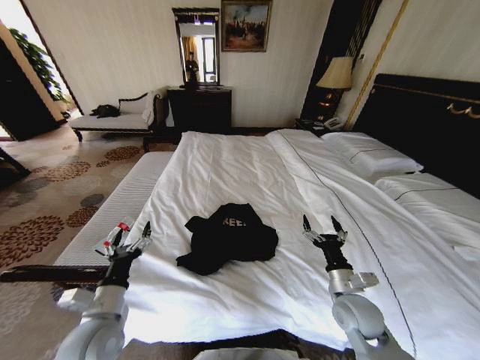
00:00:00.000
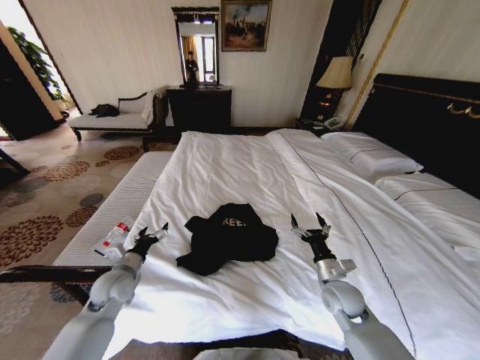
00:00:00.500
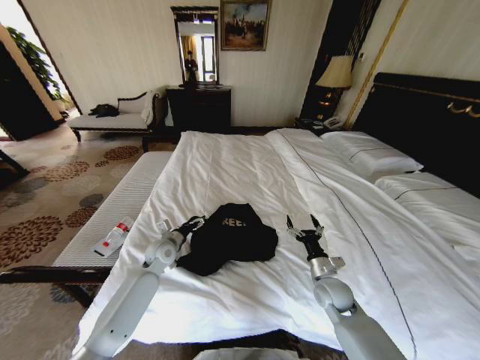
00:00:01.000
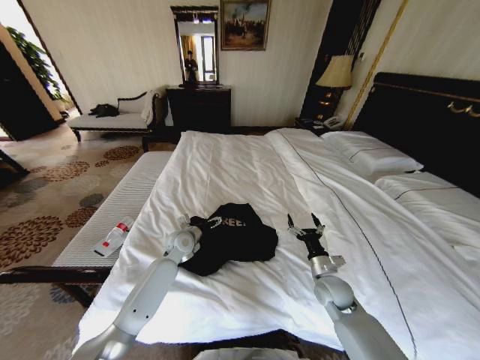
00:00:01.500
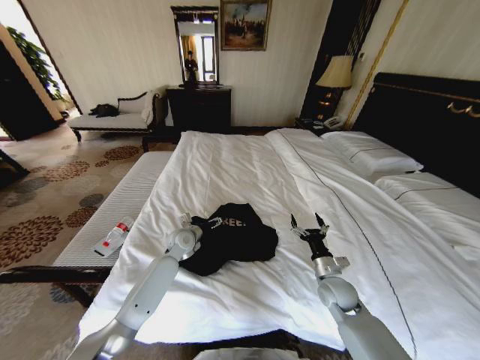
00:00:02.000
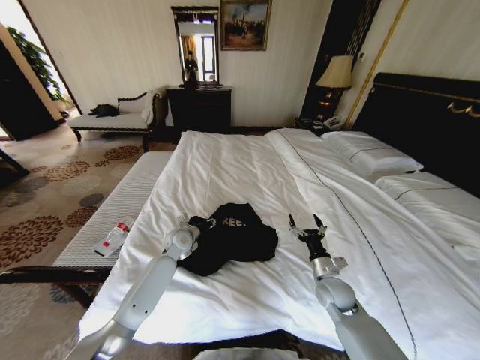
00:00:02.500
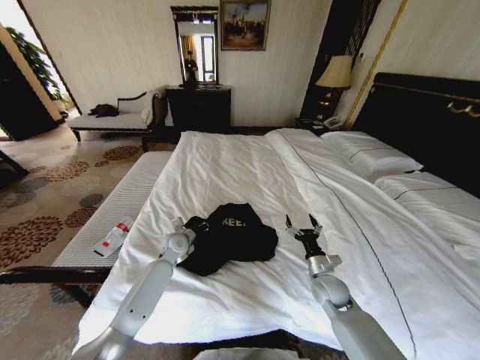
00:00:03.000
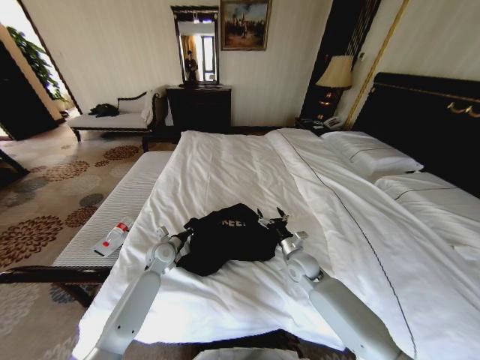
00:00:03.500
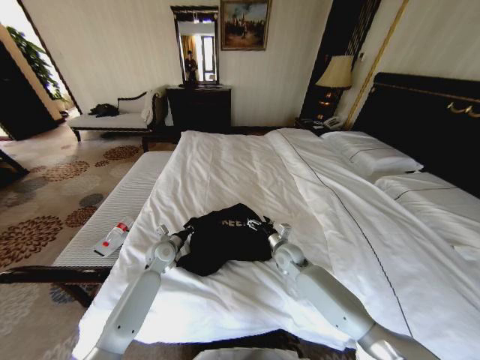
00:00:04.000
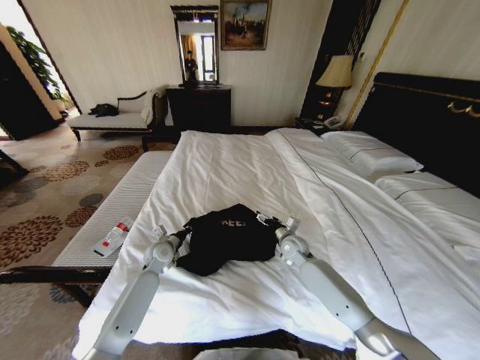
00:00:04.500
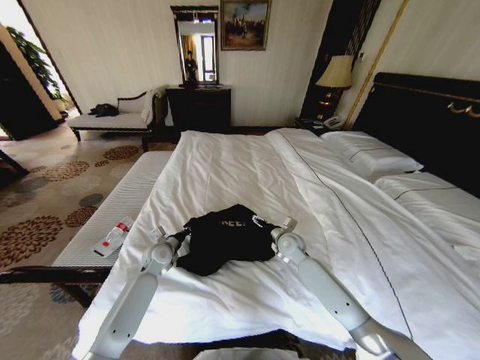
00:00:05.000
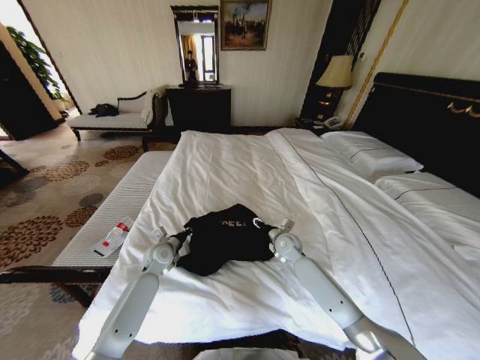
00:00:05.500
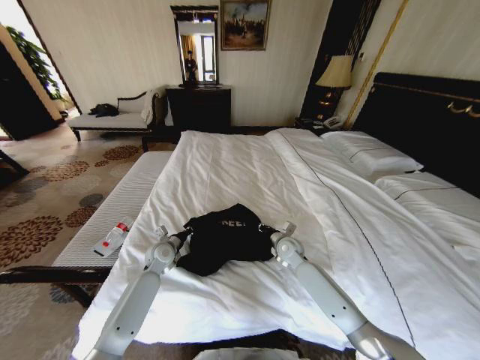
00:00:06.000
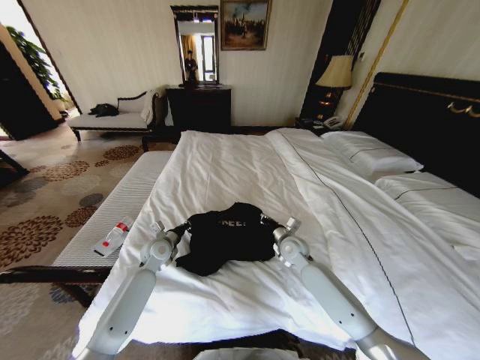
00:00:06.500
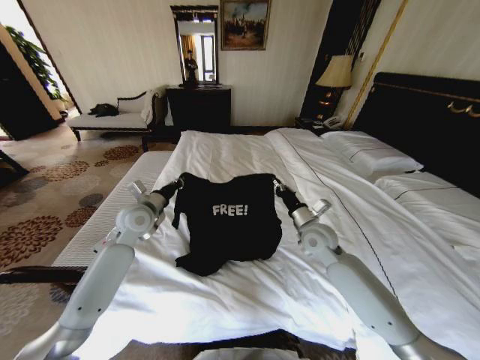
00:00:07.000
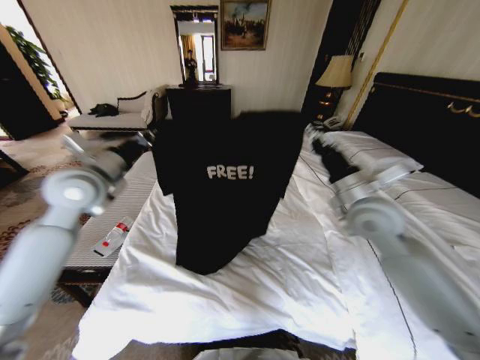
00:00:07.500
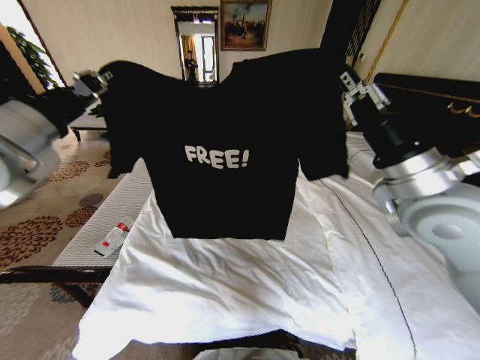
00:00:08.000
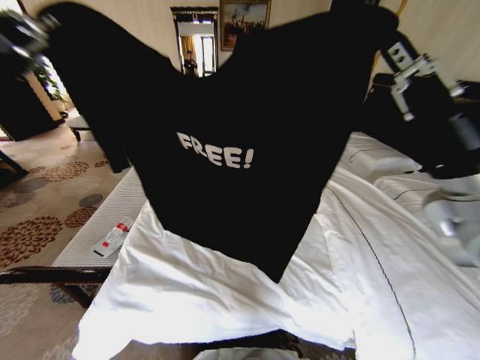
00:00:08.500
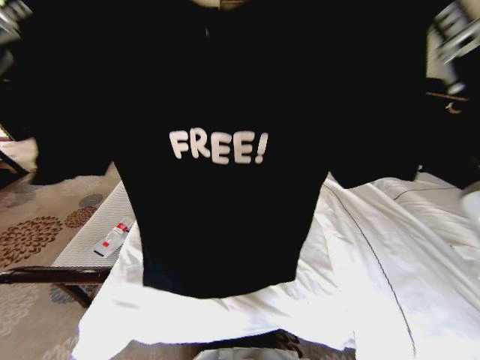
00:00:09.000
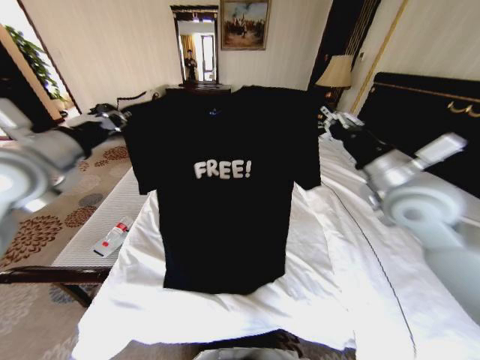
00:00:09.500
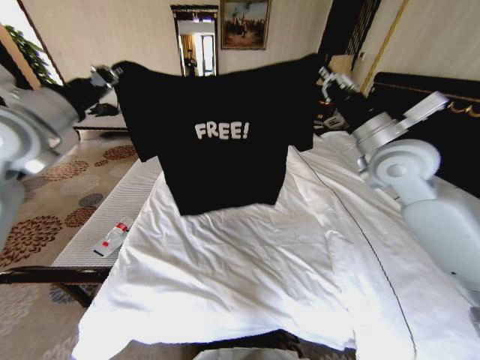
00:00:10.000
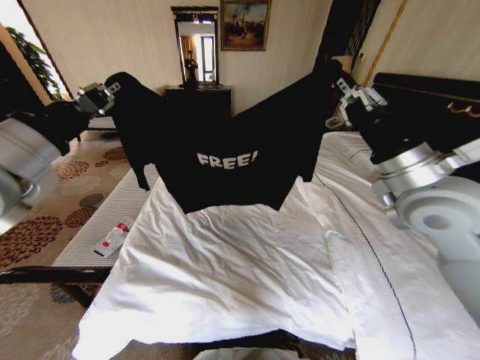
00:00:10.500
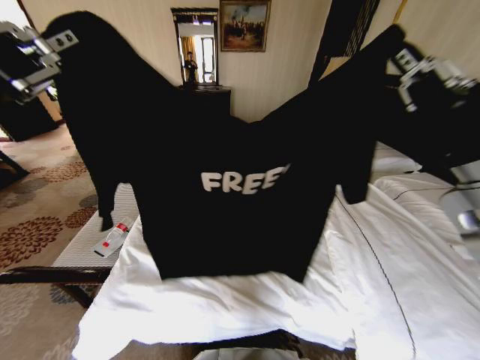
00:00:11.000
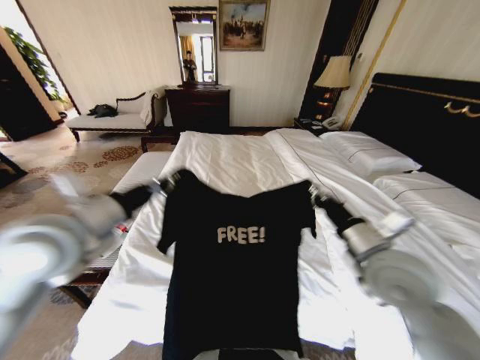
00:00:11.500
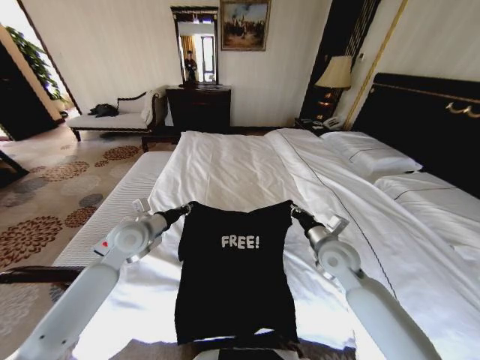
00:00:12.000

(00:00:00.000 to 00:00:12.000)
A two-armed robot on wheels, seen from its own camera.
Task of the whole recording: Fold the clothes on the bed.
00:00:00.000 - 00:00:02.000: The left gripper is displaced forward by some 30 cm. Meanwhile the right gripper goes approximately 10 cm forward and downward.
00:00:02.000 - 00:00:04.000: The left gripper heads to the left, covering roughly 5 cm, and closes up, while the right gripper moves forward and to the left, some 15 cm.
00:00:04.000 - 00:00:06.000: The right gripper closes.
00:00:06.000 - 00:00:08.000: The right gripper shifts about 40 cm upward and backward. Meanwhile the left gripper heads upward, covering approximately 40 cm.
00:00:08.000 - 00:00:10.000: The left gripper goes roughly 5 cm forward, while the right gripper is displaced forward by some 10 cm.
00:00:10.000 - 00:00:12.000: Both grippers move downward, some 25 cm.

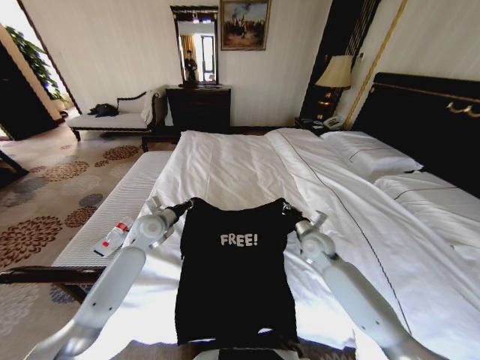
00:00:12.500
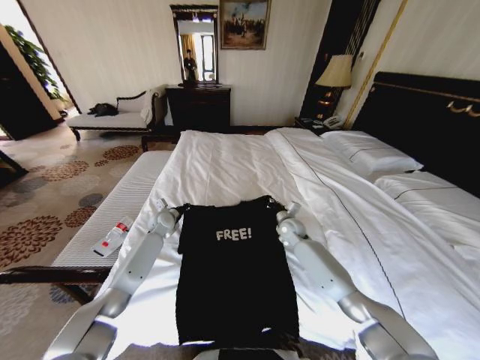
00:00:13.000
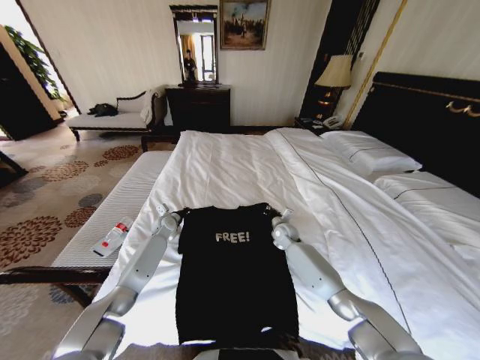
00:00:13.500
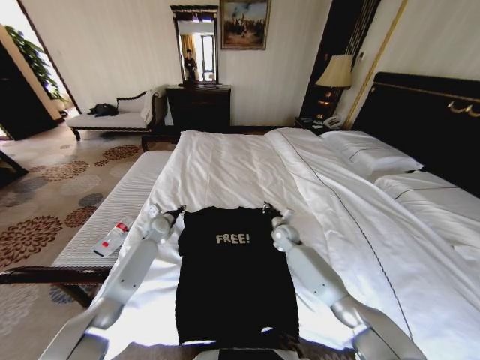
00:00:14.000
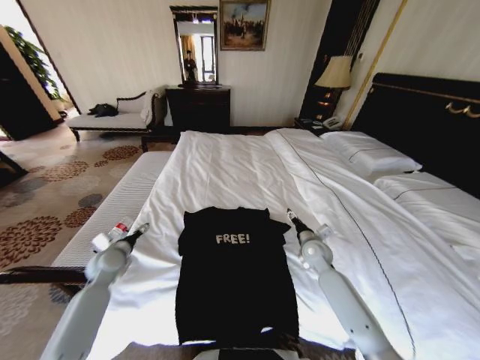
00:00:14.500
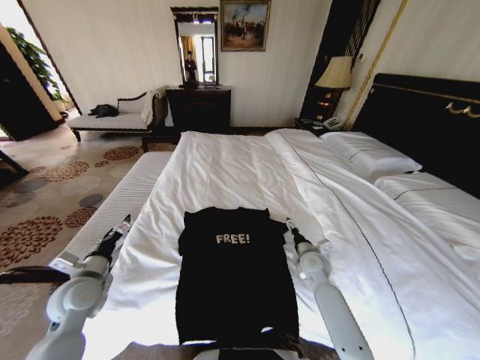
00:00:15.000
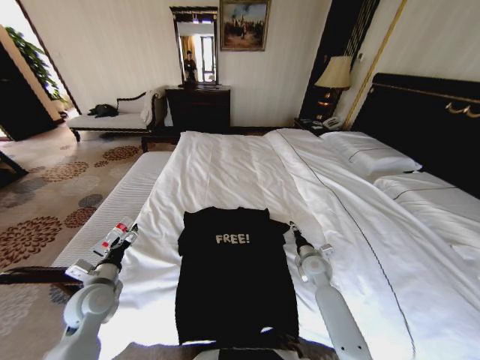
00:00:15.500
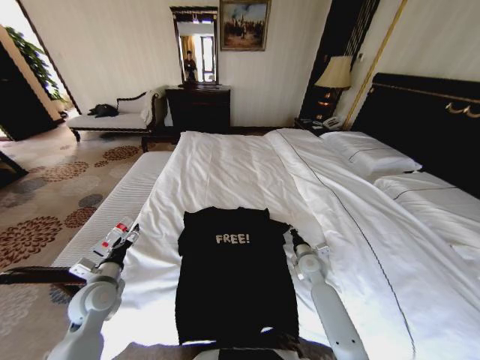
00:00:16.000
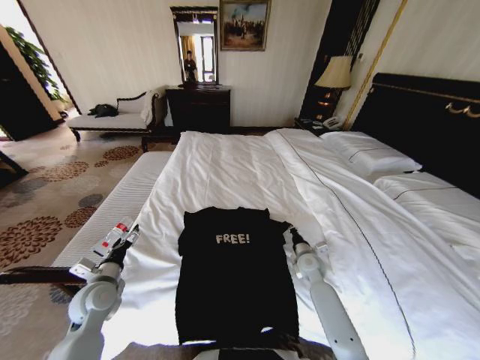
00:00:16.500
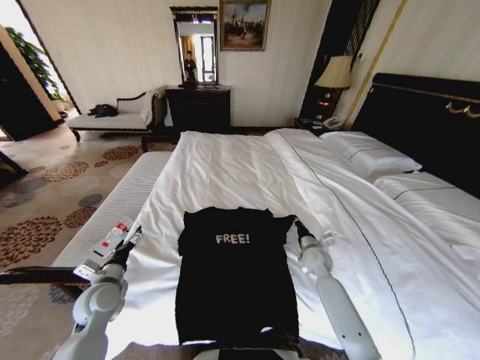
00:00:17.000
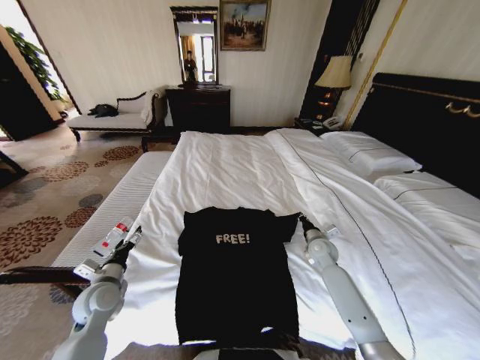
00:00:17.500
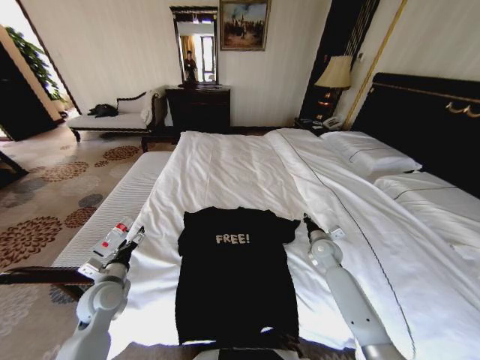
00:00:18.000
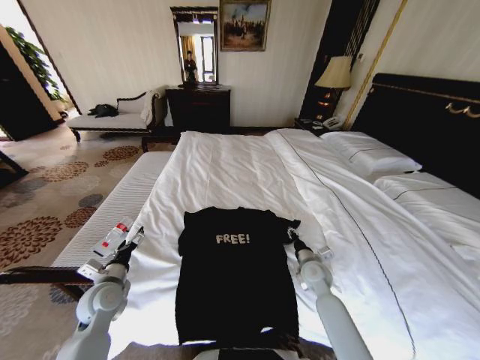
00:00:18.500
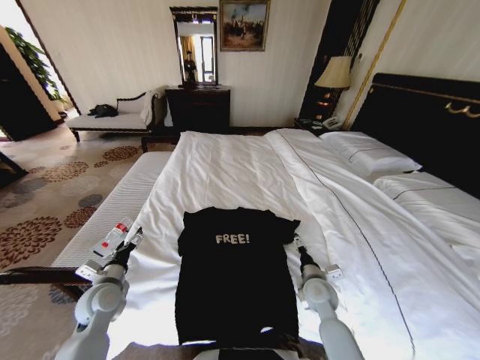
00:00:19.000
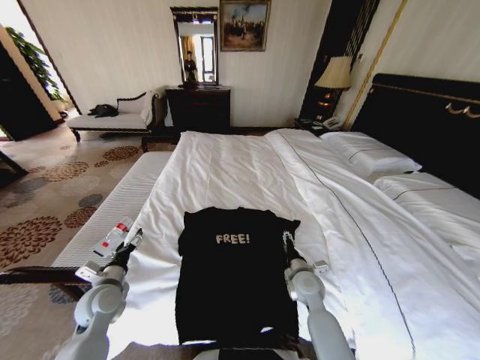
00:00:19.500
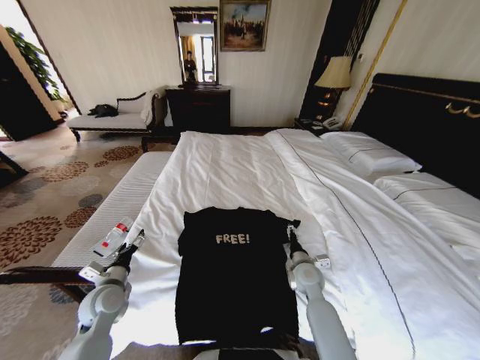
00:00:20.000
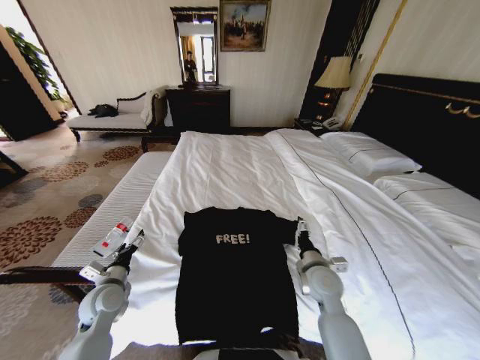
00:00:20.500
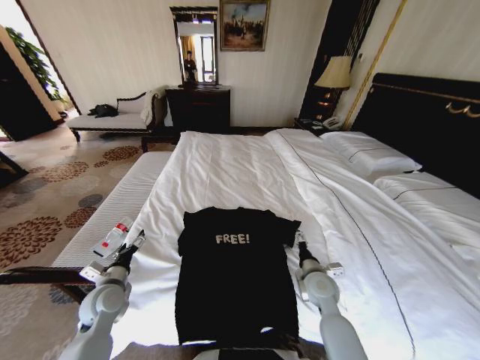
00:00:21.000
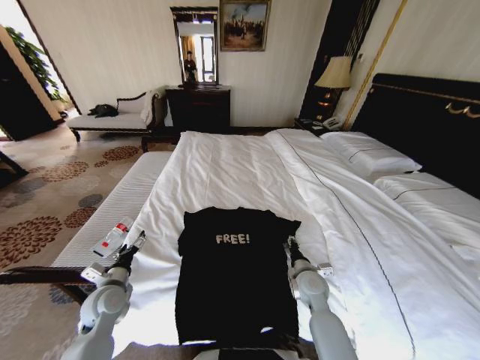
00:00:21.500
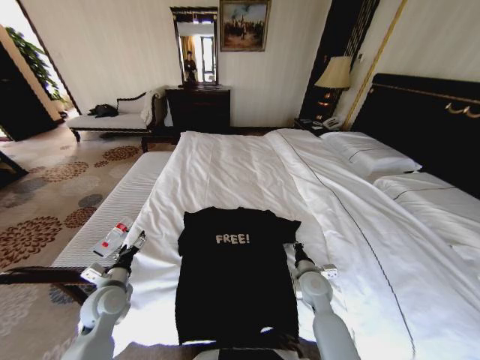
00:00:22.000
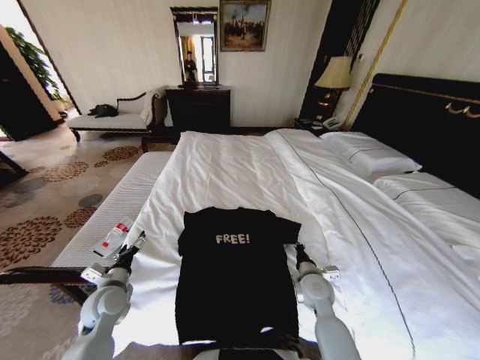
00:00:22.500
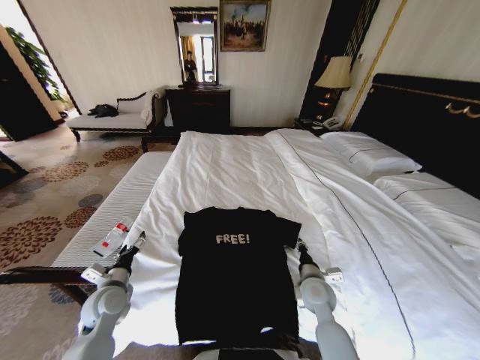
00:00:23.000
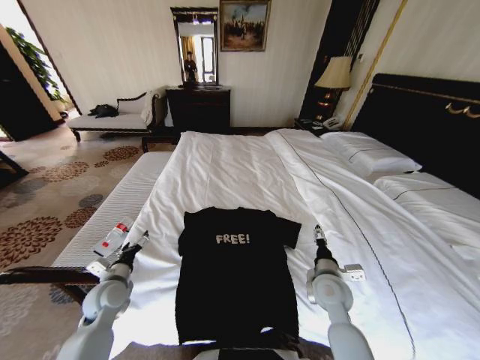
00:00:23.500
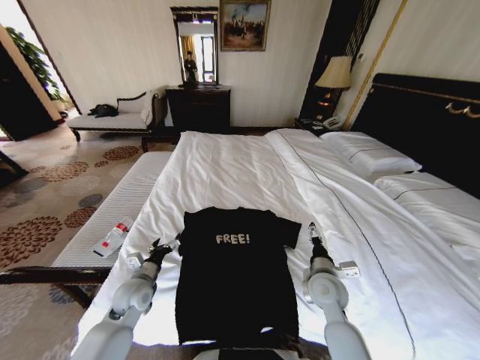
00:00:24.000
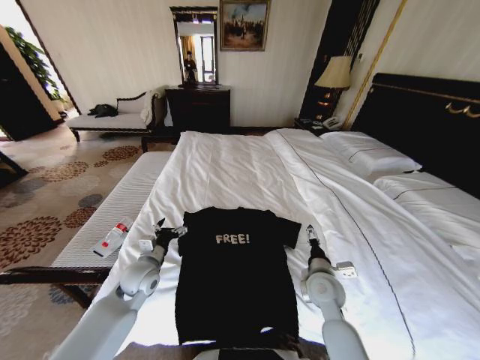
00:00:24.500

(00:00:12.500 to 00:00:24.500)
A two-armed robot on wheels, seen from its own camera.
Task of the whole recording: Fold the clothes on the bed.
00:00:12.500 - 00:00:14.500: The right gripper moves approximately 10 cm forward and comes back, and opens its fingers, while the left gripper travels to the left, downward and backward by some 15 cm, and opens up.
00:00:14.500 - 00:00:16.500: The left gripper shifts approximately 10 cm backward, while the right gripper heads downward, covering roughly 5 cm, and closes its fingers.
00:00:16.500 - 00:00:18.500: The right gripper opens up.
00:00:18.500 - 00:00:20.500: The right gripper moves upward and backward, about 10 cm, and opens up.
00:00:20.500 - 00:00:22.500: The right gripper is displaced downward by about 5 cm, and closes.
00:00:22.500 - 00:00:24.500: The left gripper heads to the right and forward, covering roughly 10 cm, while the right gripper opens.

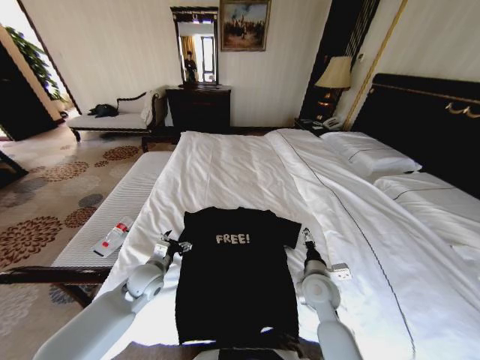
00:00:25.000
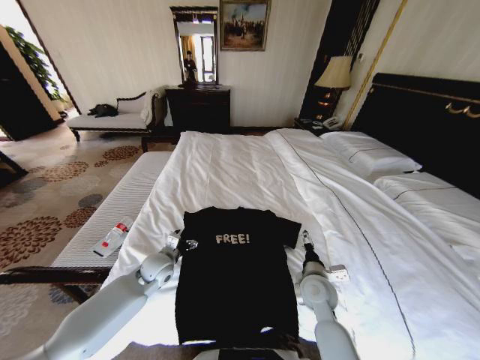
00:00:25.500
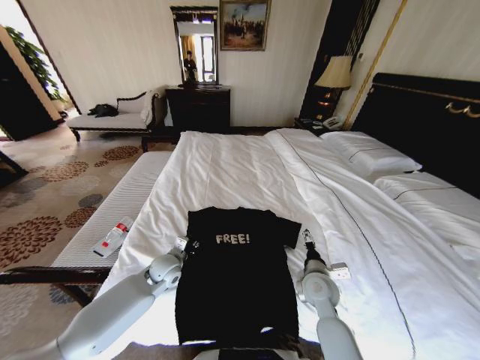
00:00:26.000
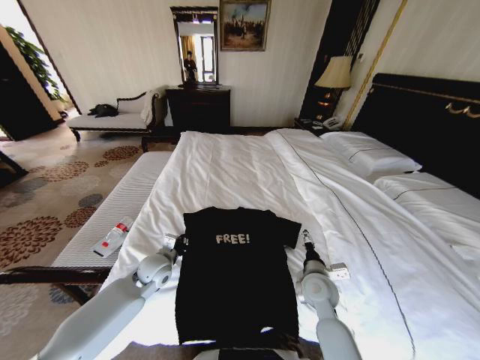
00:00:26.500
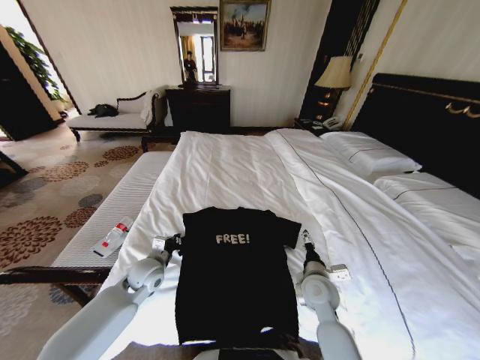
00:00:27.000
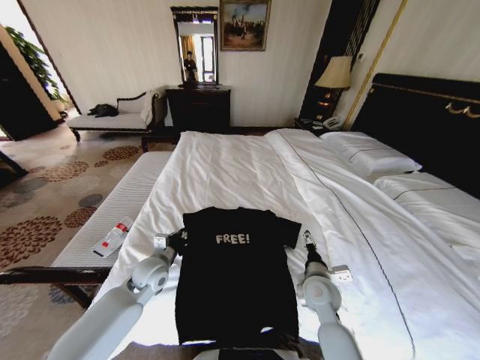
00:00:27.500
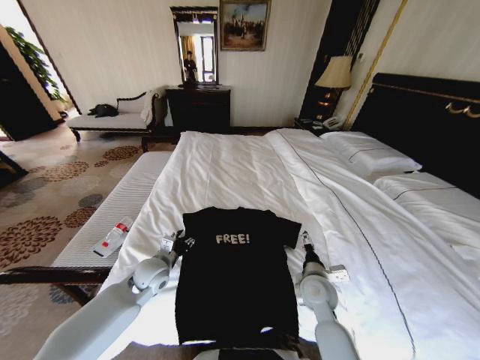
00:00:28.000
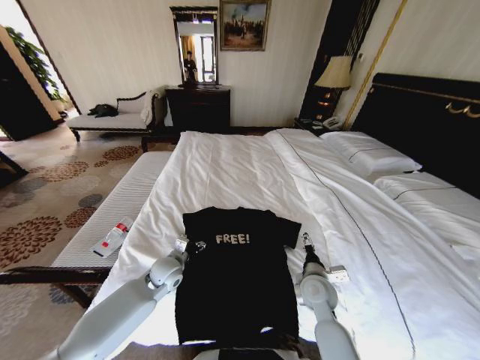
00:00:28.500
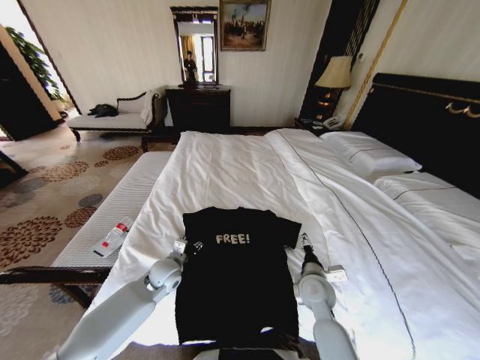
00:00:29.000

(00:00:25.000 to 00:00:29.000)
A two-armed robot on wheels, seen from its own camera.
Task of the whole recording: Fold the clothes on the bed.
00:00:25.000 - 00:00:27.000: The left gripper closes.
00:00:27.000 - 00:00:29.000: The left gripper moves about 5 cm, and opens its fingers.
